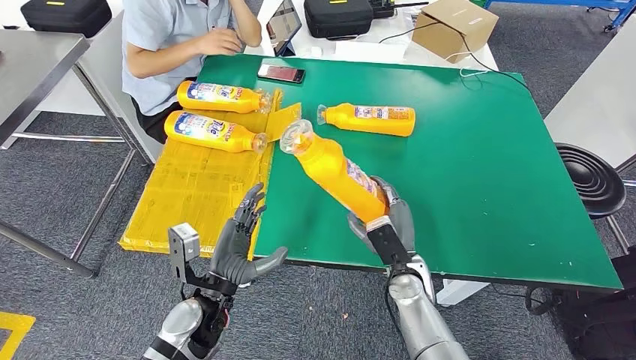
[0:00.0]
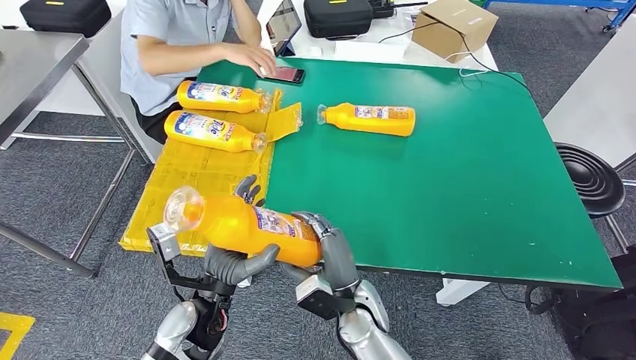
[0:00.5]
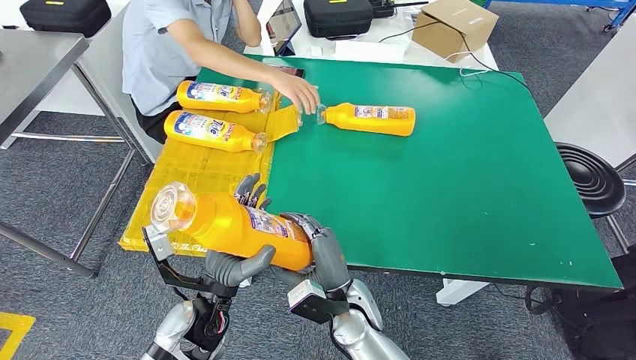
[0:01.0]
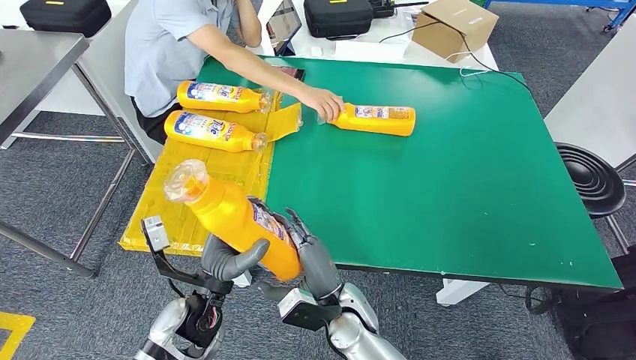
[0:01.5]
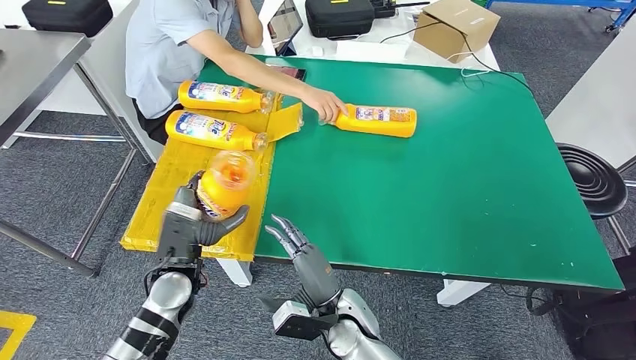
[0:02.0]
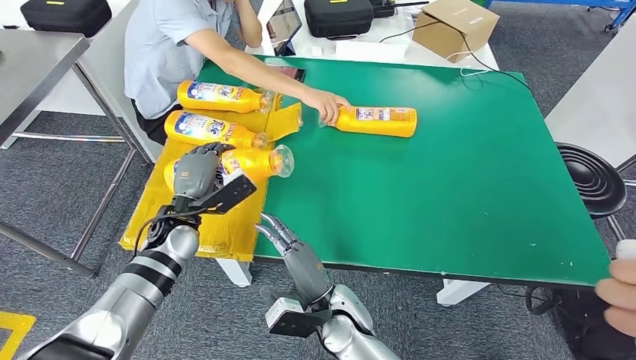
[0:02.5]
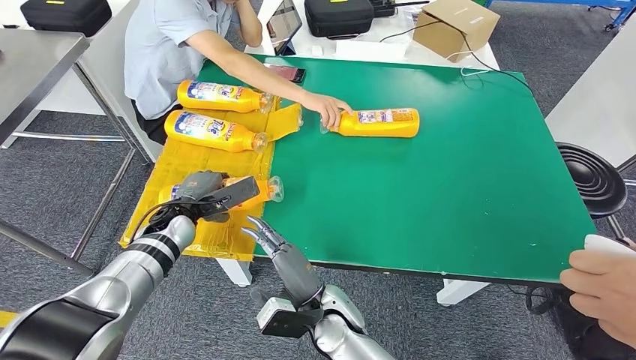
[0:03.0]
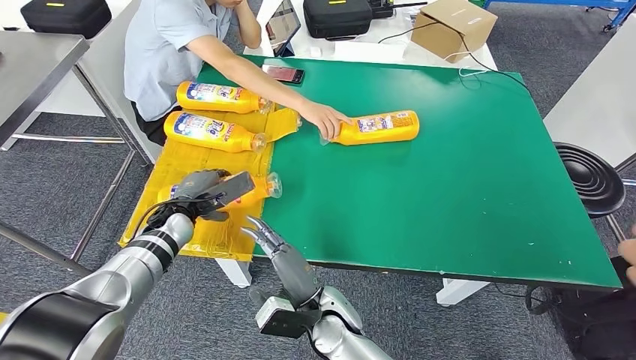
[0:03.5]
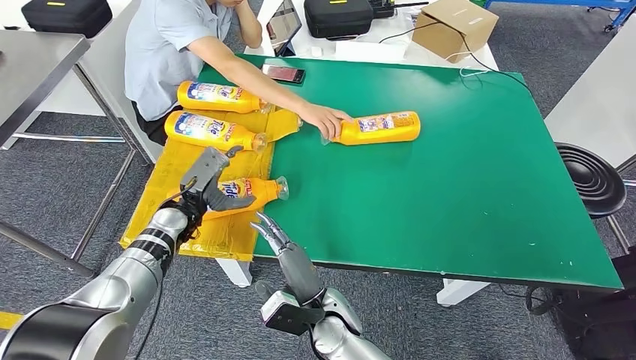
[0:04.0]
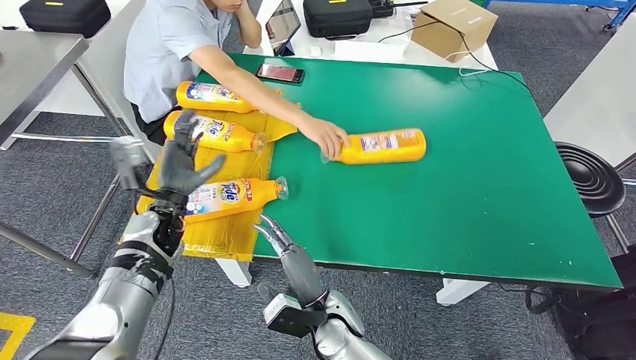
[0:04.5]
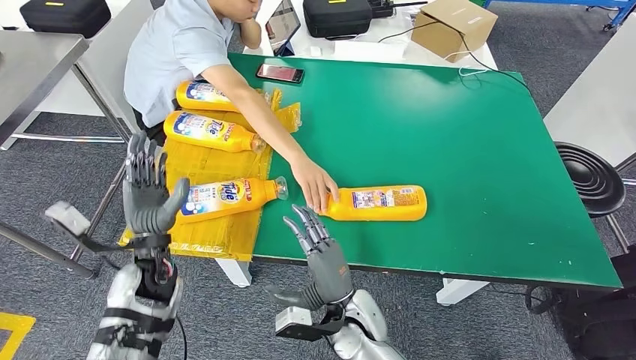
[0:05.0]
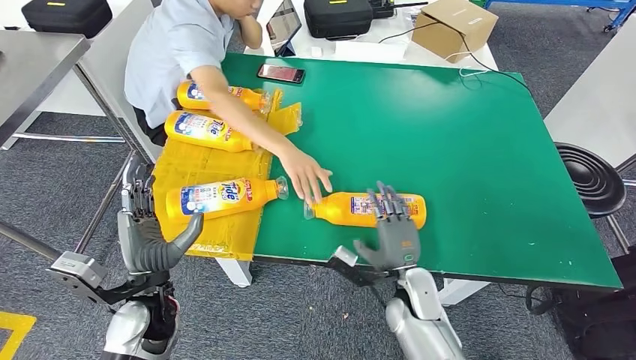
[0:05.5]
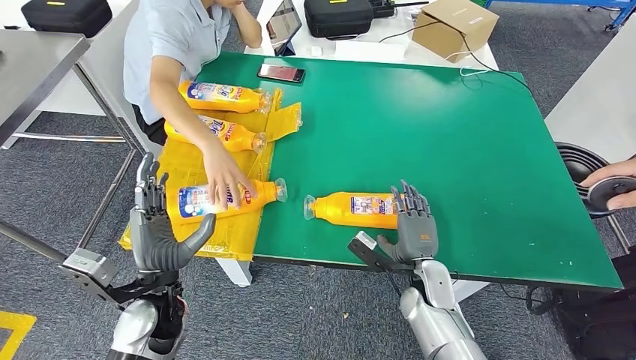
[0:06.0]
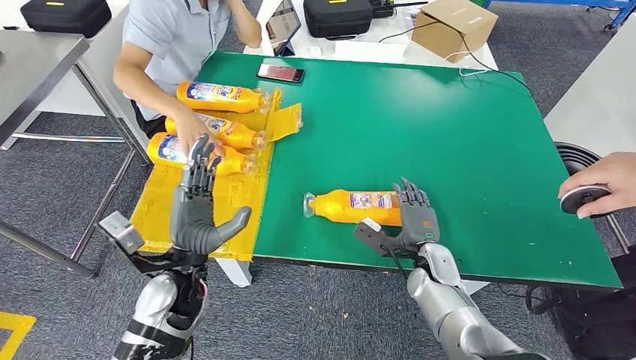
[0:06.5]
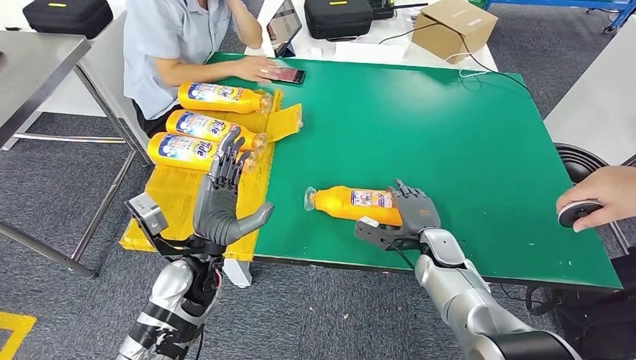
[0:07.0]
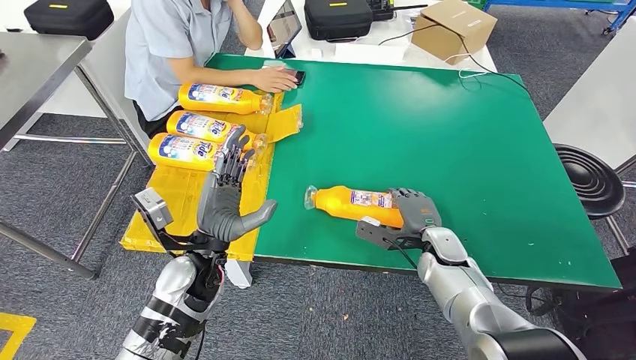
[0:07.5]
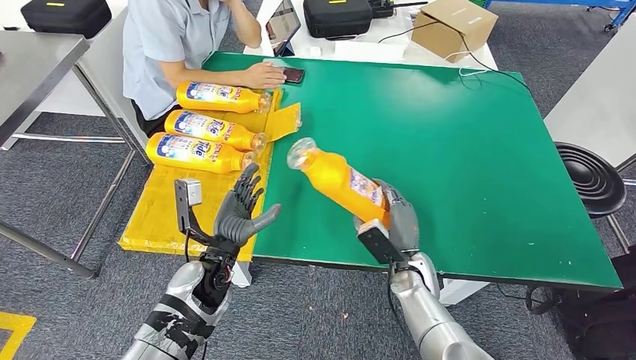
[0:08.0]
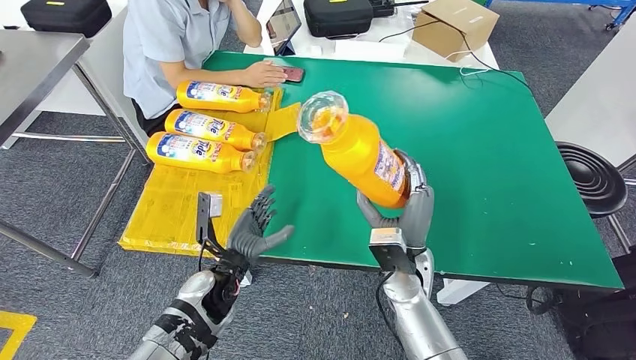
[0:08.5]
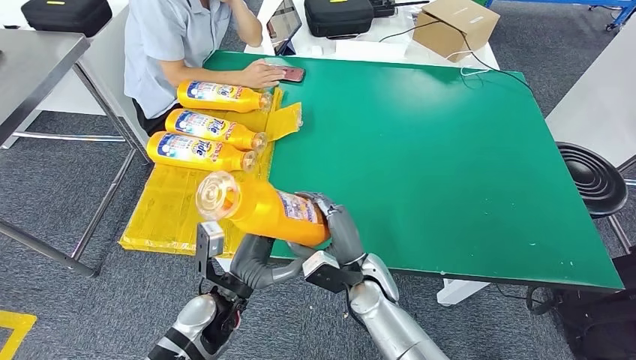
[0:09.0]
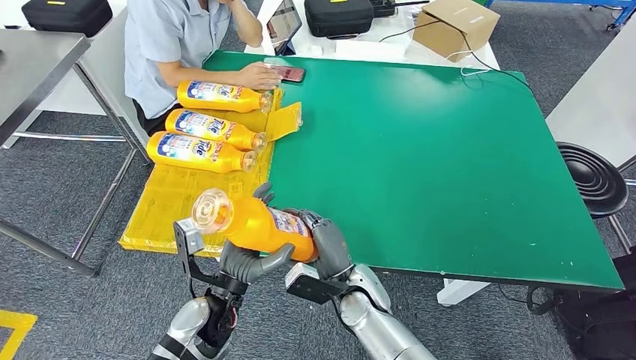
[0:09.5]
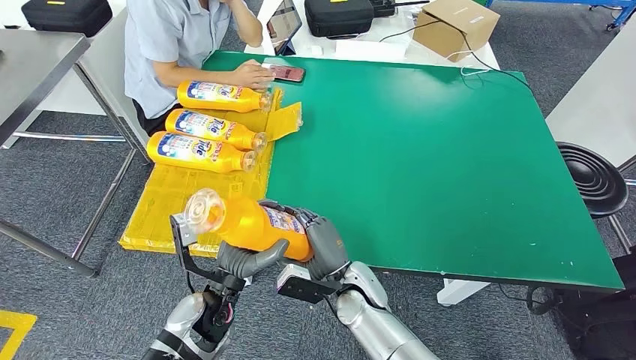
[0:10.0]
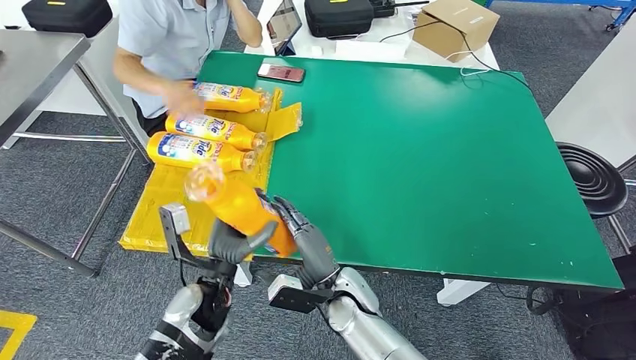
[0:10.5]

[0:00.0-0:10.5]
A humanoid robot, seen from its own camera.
Step, 0:01.5 to 0:04.0: Flip the bottle to face forward.
Step, 0:06.0 to 0:09.5: Pick up the bottle from the table.
0:02.0 to 0:04.0: The left hand shifts about 10 cm forward.
0:08.5 to 0:10.5: The right hand heads to the left and downward, covering roughly 10 cm.

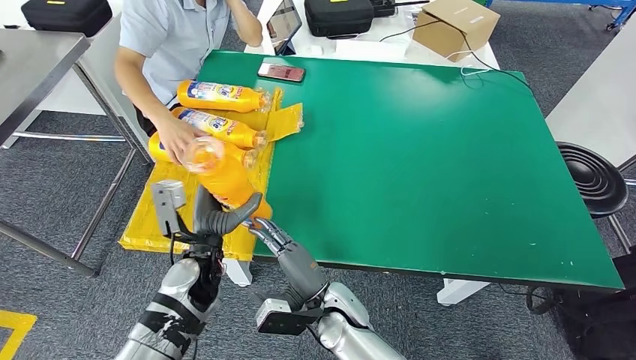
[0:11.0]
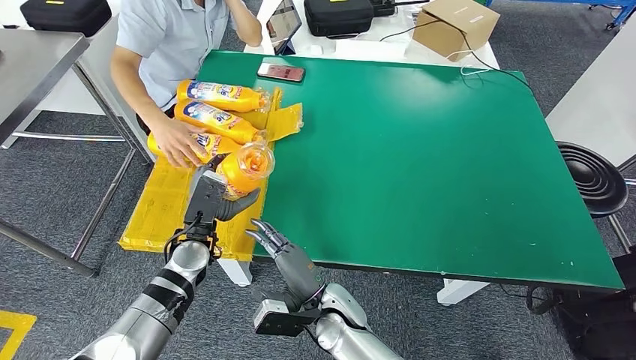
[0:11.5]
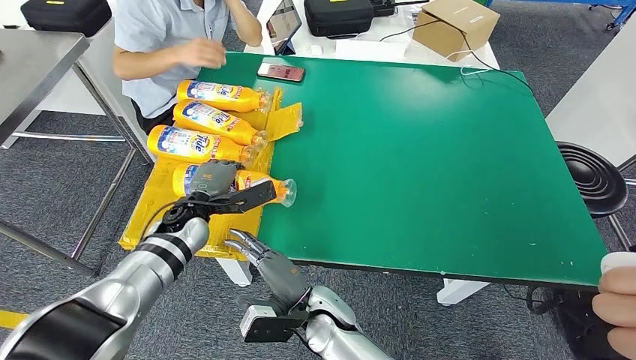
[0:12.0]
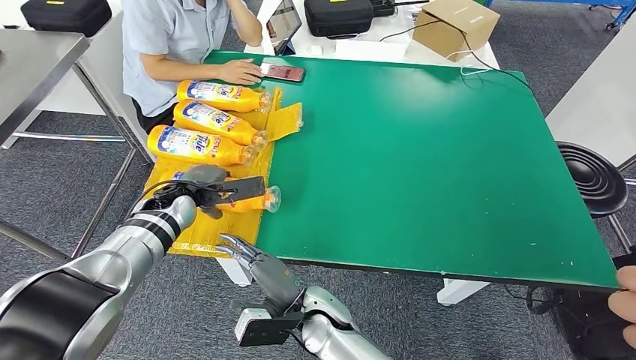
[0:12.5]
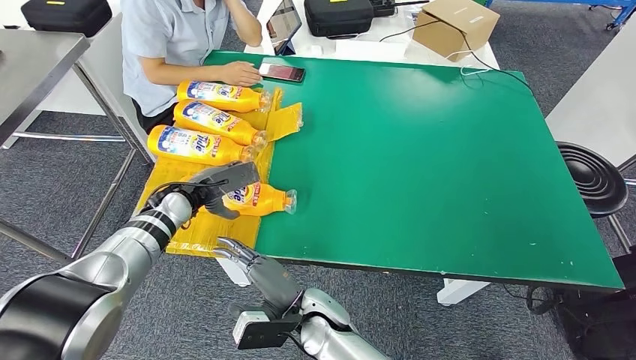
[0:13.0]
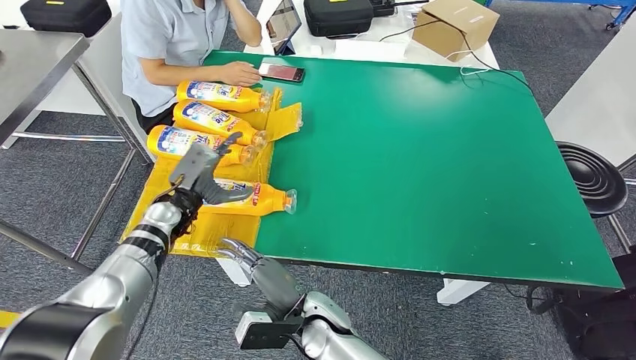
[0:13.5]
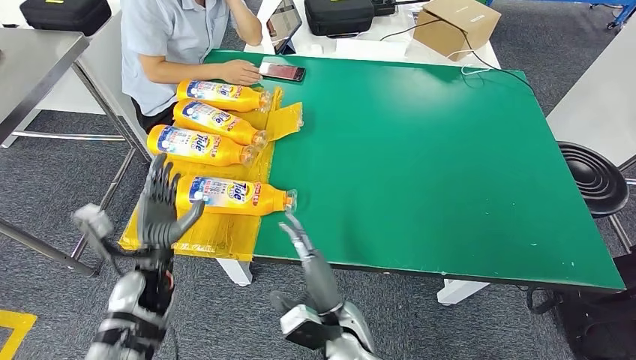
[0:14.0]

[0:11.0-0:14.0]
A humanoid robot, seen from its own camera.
Step, 0:11.0 to 0:14.0: Flip the bottle to face forward.
0:11.0 to 0:12.5: The left hand travels forward and to the left by some 15 cm.
0:12.5 to 0:14.0: The left hand moves backward, about 15 cm.
